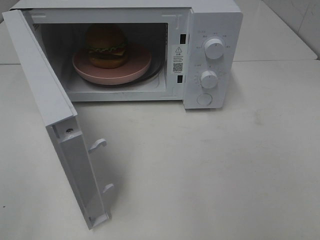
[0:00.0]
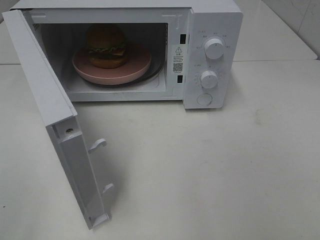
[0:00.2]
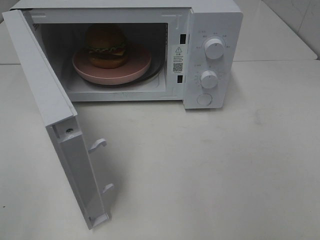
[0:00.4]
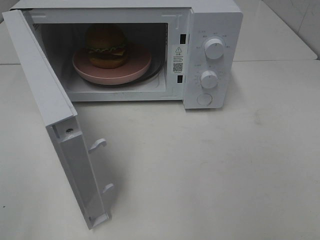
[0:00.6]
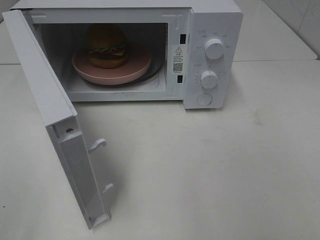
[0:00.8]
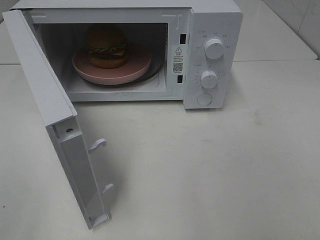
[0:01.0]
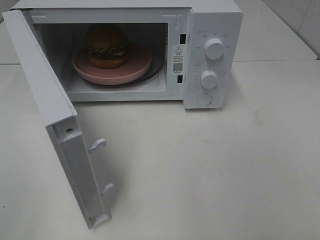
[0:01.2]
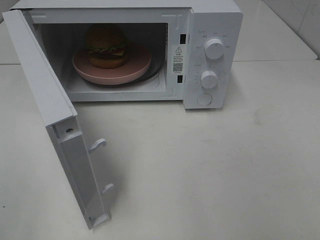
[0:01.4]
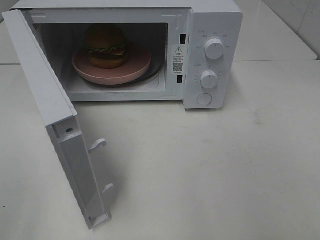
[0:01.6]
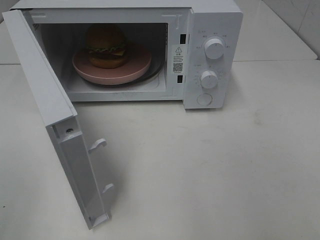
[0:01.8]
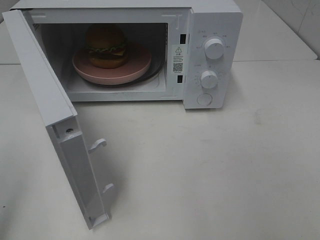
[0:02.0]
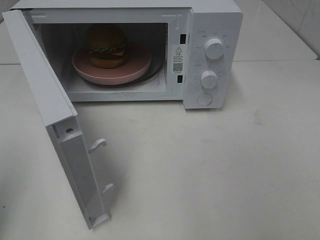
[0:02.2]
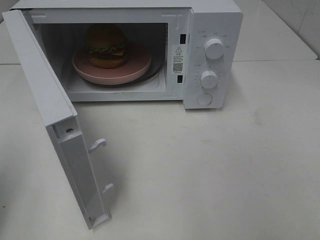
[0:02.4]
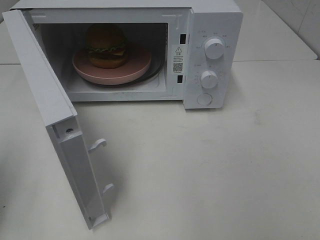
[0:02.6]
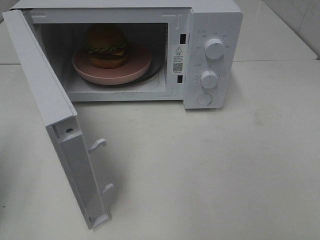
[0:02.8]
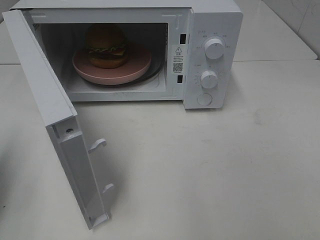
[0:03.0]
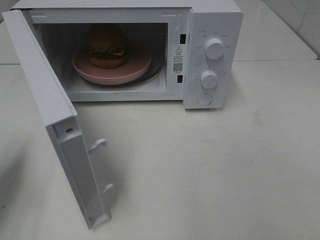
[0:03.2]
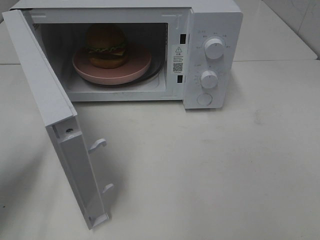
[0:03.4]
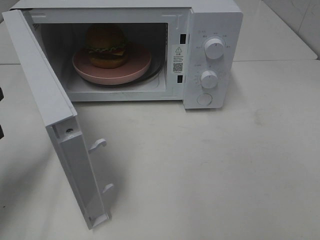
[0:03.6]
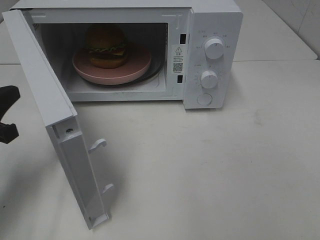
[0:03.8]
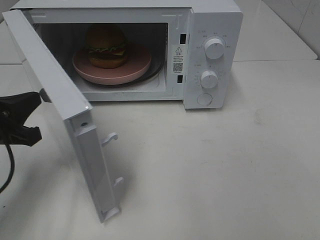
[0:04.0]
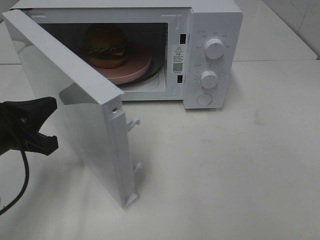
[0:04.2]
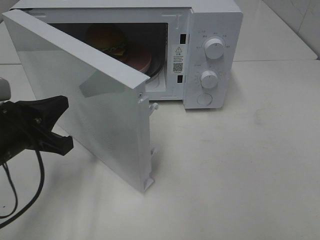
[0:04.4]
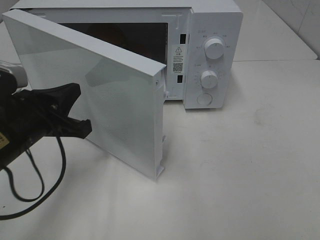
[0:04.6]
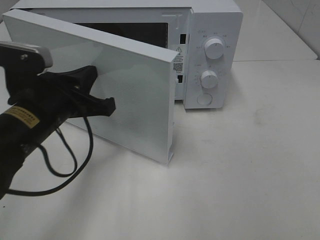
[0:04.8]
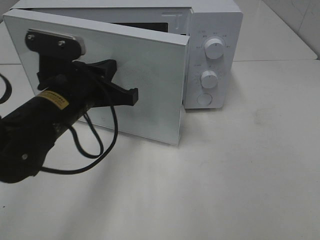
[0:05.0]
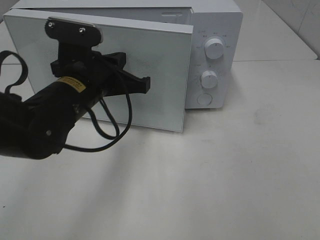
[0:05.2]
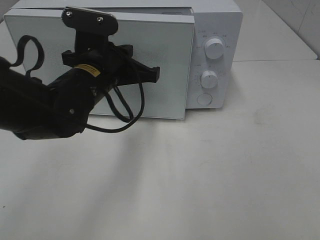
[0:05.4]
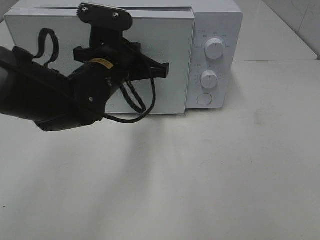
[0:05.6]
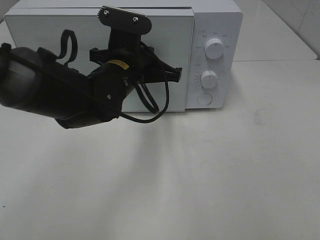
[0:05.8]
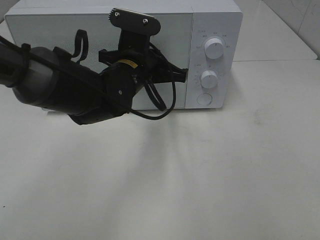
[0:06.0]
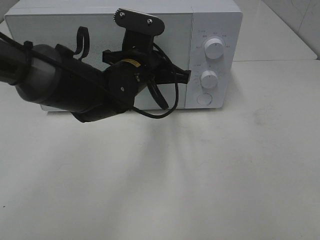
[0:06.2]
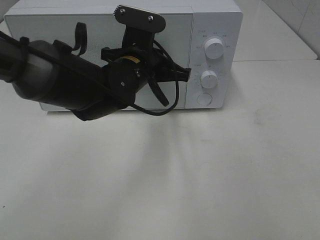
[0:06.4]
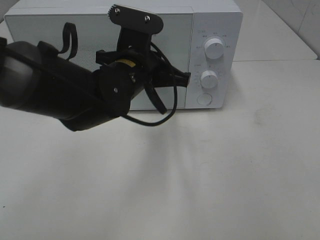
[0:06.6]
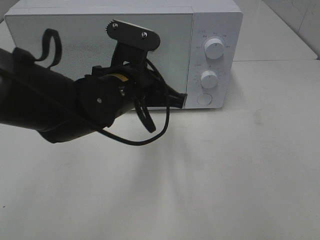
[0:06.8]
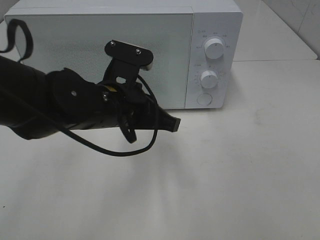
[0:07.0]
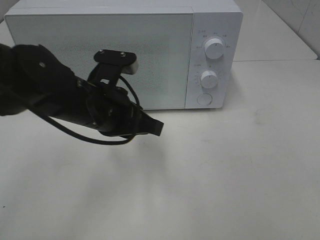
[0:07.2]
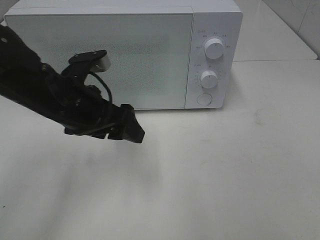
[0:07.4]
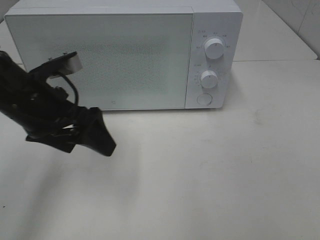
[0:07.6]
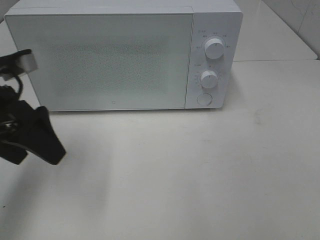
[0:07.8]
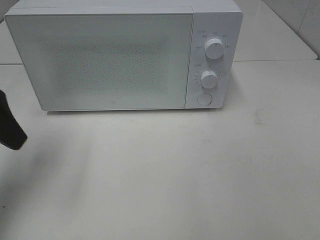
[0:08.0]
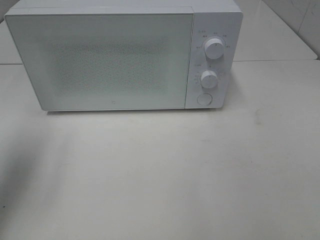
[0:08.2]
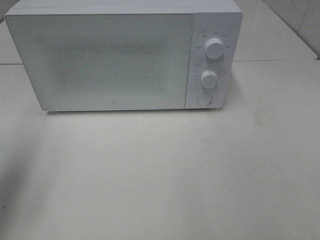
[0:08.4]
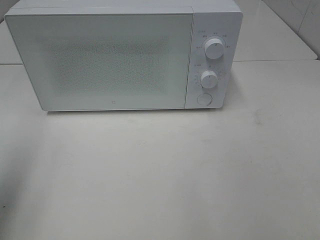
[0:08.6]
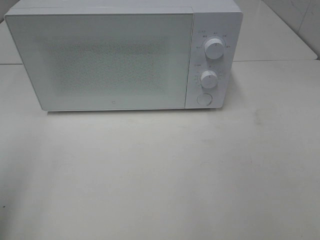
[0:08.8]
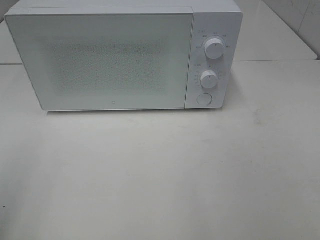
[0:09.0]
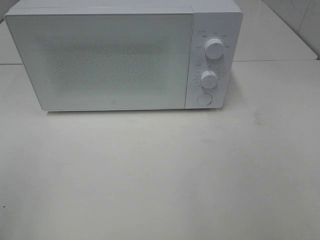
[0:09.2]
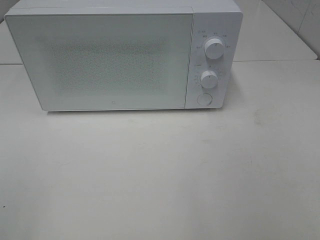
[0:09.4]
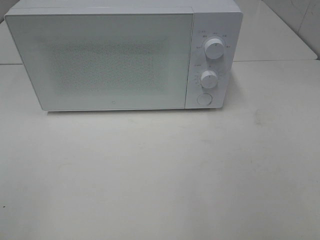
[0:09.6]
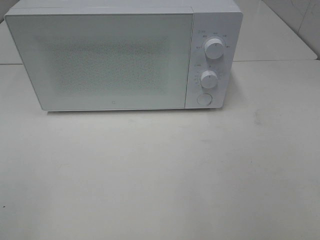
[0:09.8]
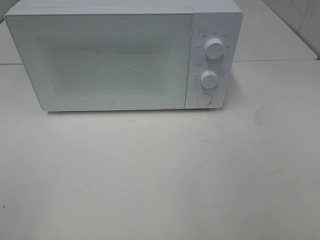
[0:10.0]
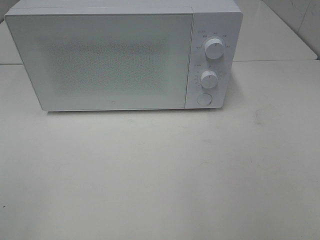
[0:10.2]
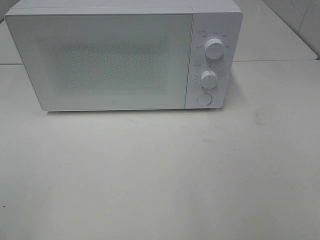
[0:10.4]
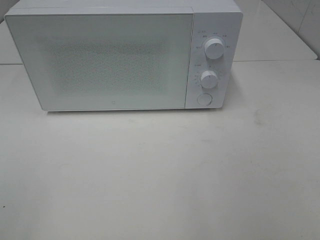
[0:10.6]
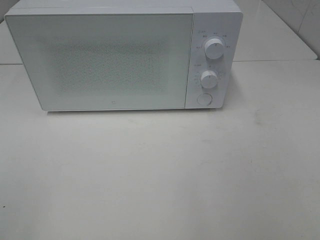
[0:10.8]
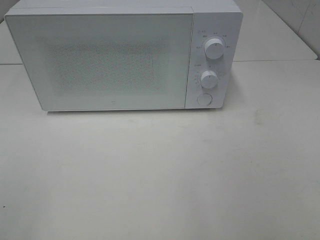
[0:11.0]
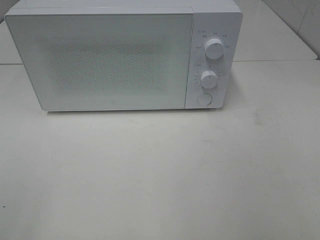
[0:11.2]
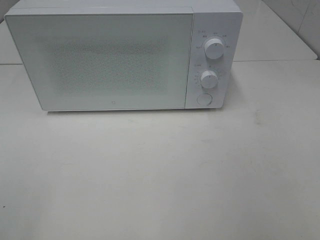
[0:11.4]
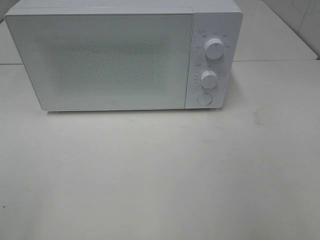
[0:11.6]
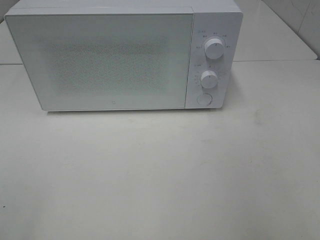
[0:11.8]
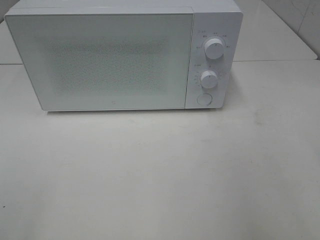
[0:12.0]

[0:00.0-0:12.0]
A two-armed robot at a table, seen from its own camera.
Task of the whole recording: Heat the burger.
Step, 0:00.0 to 0:06.8: Left hand: close the microwave door.
0:01.6 to 0:03.0: The left gripper moves forward and downward, approximately 20 cm, and closes.
0:03.0 to 0:04.4: The left gripper is displaced to the right and downward by about 15 cm.
0:04.4 to 0:06.0: The left gripper heads to the right and forward, covering some 20 cm.
0:06.0 to 0:07.6: The left gripper shifts approximately 15 cm to the left and backward, and opens its fingers.
0:07.6 to 0:09.0: The left gripper moves backward, to the left and upward, roughly 25 cm.

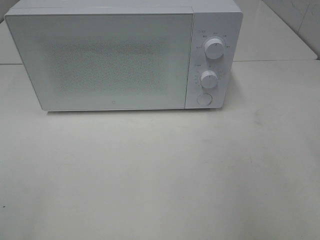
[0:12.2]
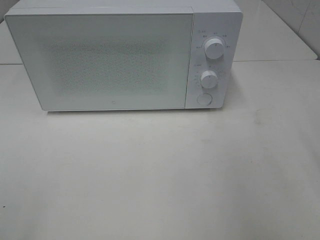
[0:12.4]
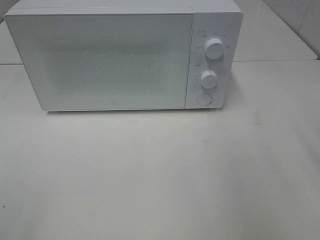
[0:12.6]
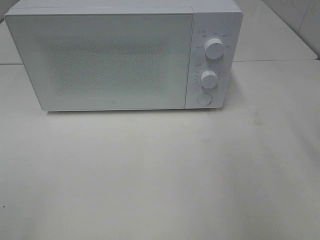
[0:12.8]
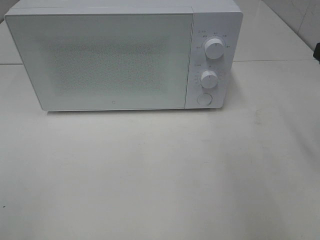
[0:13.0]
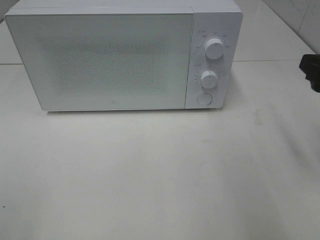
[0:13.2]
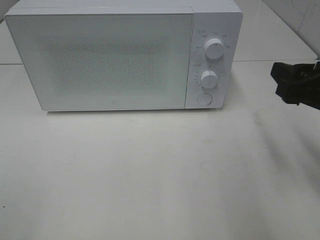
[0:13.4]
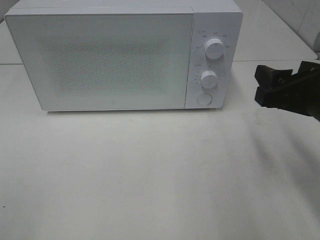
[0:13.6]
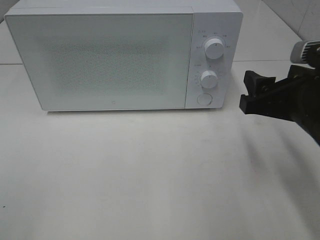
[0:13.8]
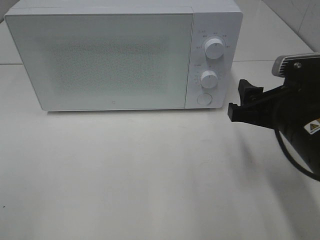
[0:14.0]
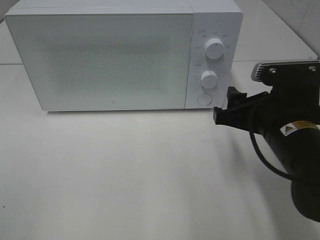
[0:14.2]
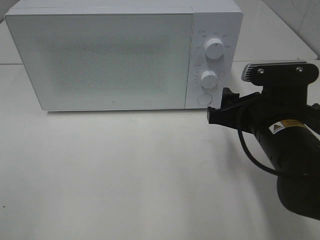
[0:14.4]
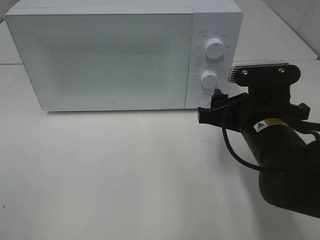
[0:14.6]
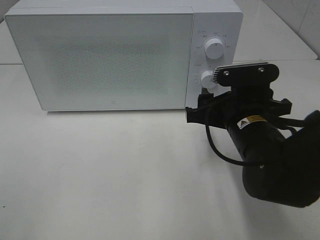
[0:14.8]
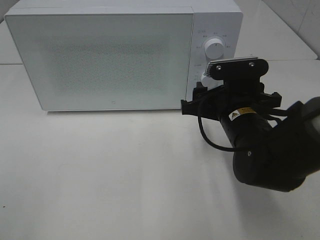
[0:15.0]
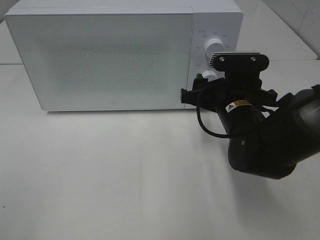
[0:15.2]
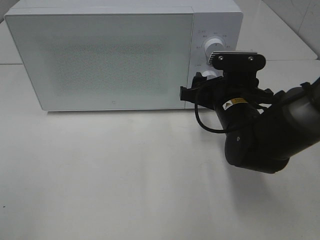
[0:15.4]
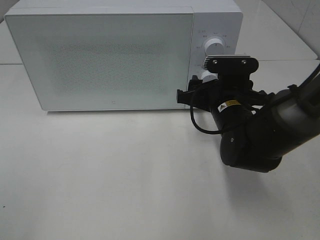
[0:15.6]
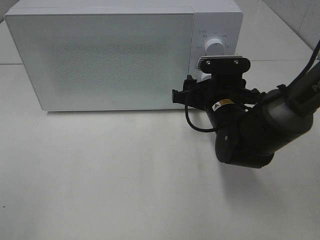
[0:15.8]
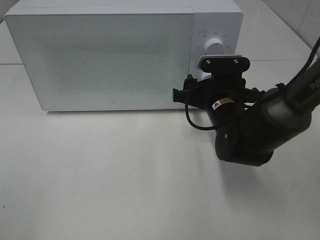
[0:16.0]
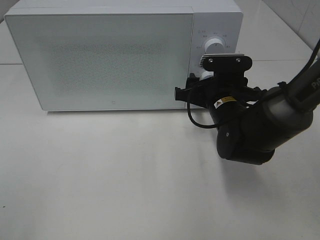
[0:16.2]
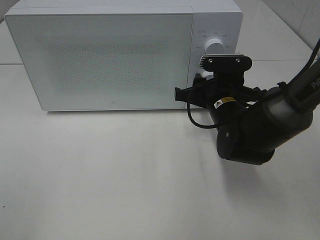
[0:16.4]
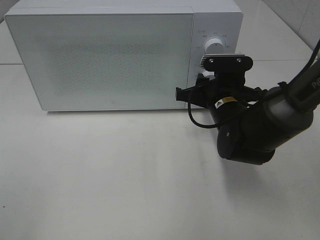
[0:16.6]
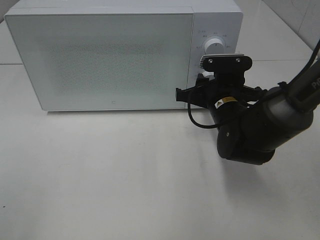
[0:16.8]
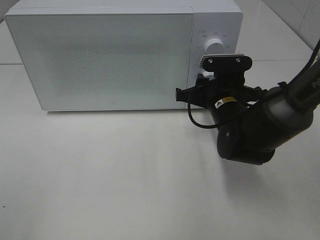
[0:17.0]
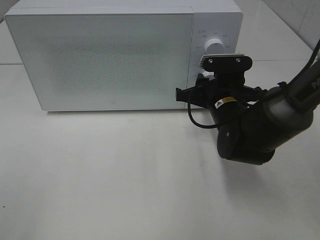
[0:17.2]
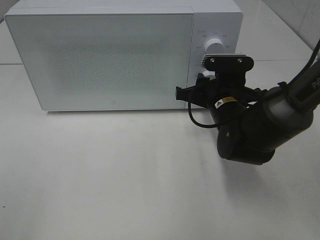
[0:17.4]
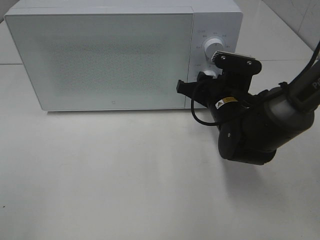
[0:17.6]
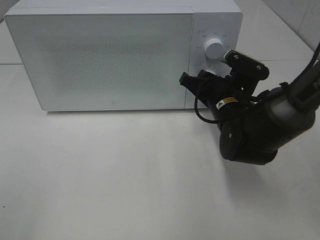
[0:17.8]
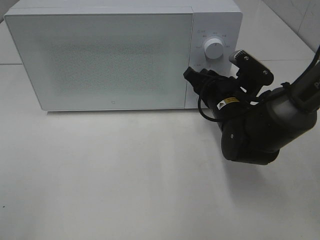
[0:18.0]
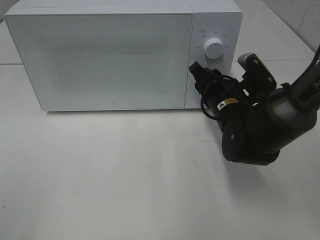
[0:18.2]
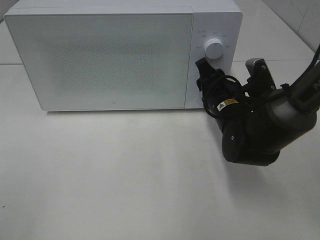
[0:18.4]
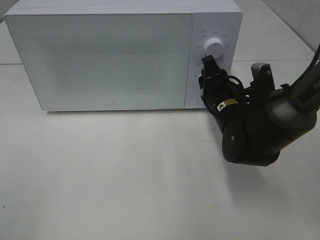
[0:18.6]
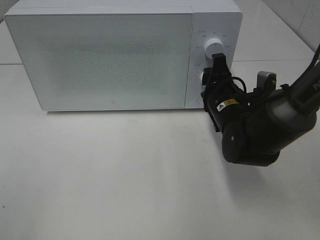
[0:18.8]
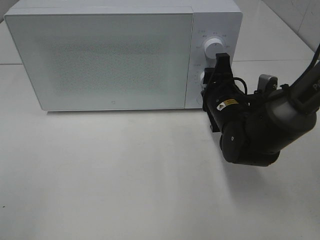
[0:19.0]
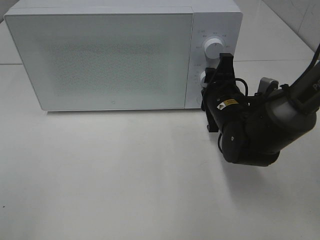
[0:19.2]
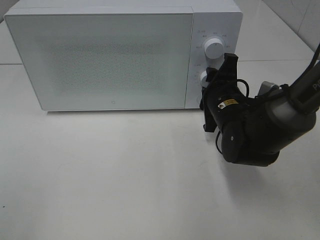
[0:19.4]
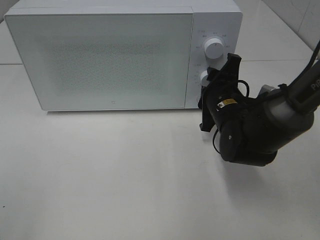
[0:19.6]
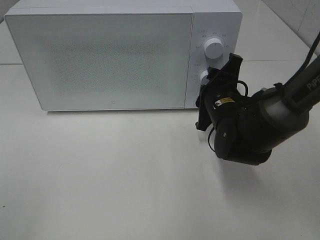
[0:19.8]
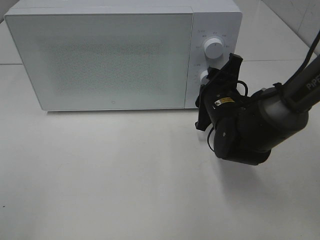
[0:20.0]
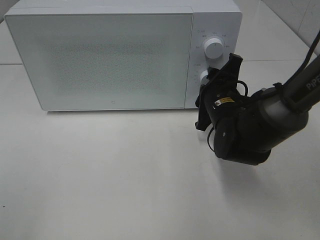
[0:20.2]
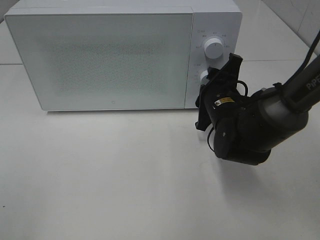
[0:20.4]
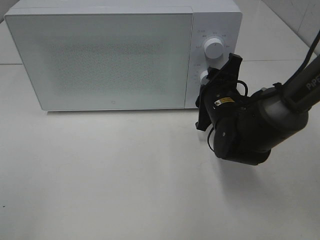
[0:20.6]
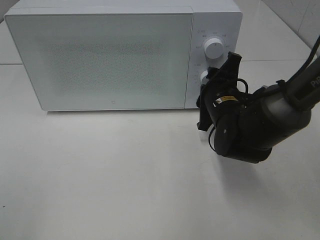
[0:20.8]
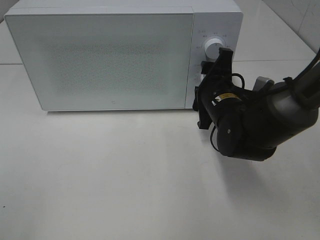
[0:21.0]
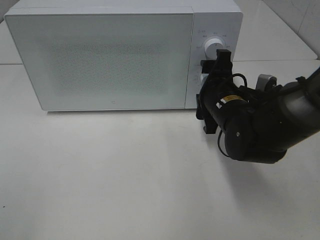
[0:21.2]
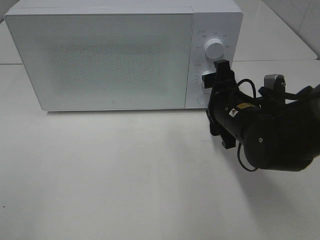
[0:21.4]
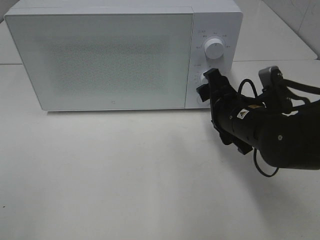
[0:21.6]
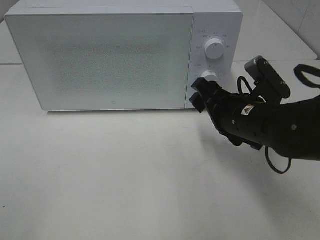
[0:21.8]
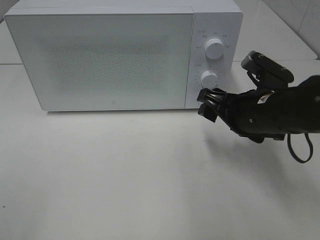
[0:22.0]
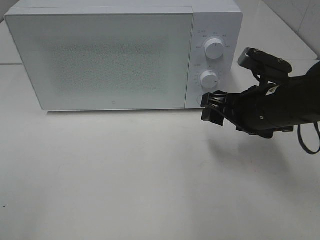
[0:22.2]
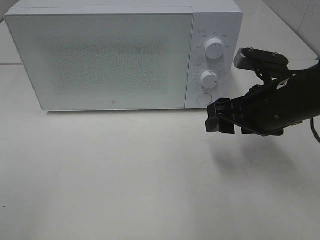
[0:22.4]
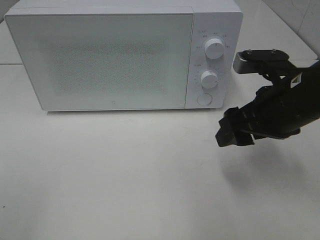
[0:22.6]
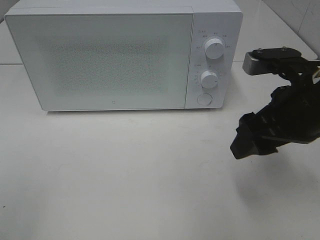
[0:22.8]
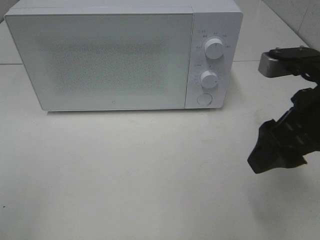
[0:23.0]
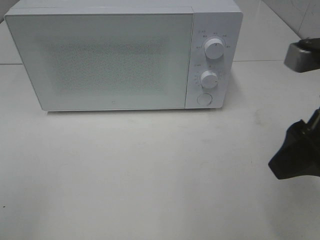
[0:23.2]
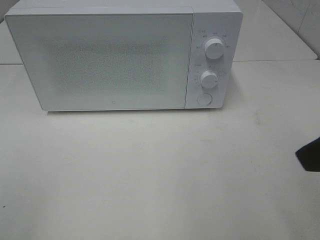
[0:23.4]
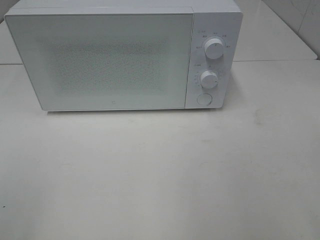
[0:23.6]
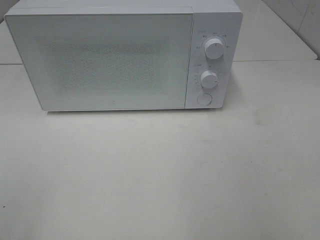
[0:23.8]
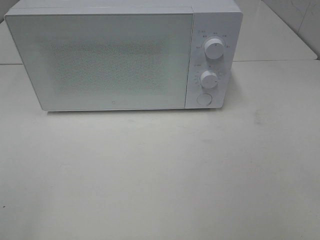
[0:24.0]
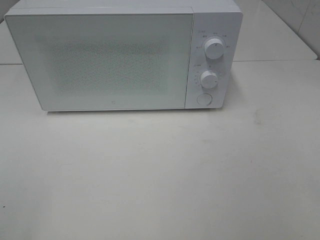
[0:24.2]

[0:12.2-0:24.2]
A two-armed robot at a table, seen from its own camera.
Task of the whole recording: Heat the burger.
Step, 0:12.2 to 0:21.4: Right hand: twist timer button.
0:12.2 to 0:13.8: The right gripper travels downward, to the left and forward by about 15 cm.
0:13.8 to 0:15.2: The right gripper travels forward, to the left and downward by roughly 15 cm.
0:15.2 to 0:16.6: There are only small adjustments of the grippers.
0:19.8 to 0:21.2: The right gripper opens up.
0:21.2 to 0:22.6: The right gripper moves upward, backward and to the right, some 10 cm.
0:22.6 to 0:24.2: The right gripper shifts approximately 25 cm backward and to the right.
